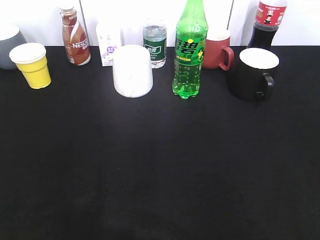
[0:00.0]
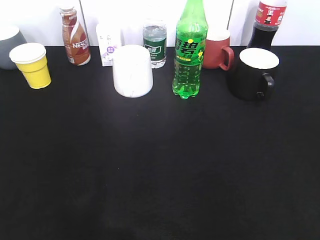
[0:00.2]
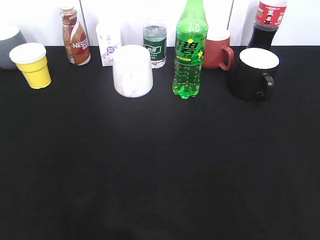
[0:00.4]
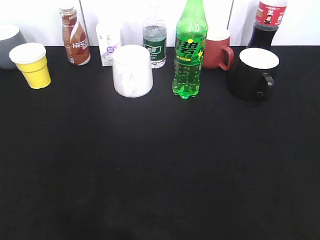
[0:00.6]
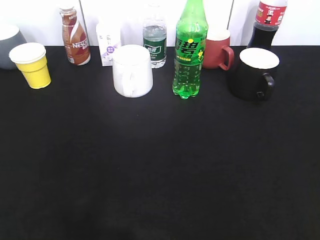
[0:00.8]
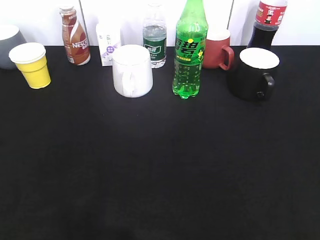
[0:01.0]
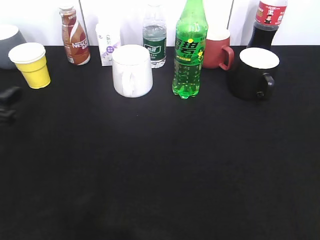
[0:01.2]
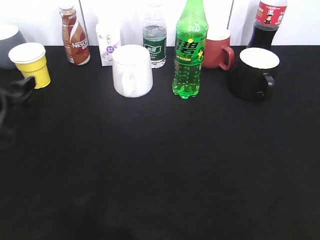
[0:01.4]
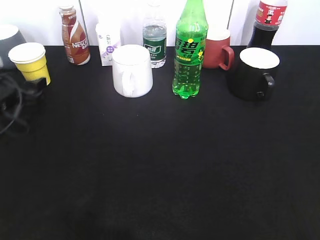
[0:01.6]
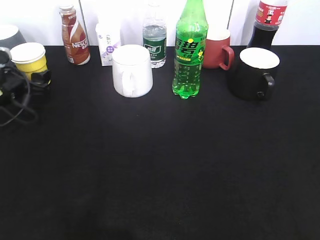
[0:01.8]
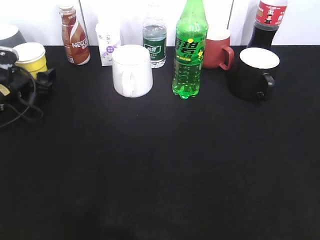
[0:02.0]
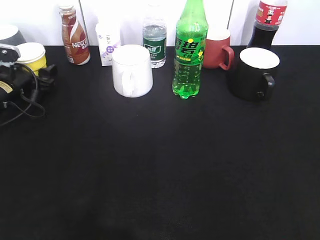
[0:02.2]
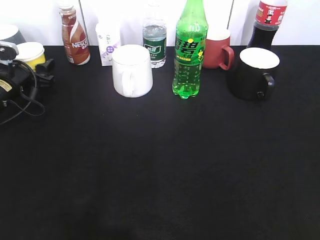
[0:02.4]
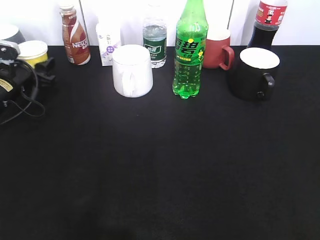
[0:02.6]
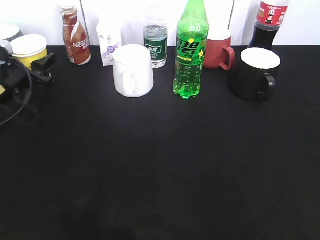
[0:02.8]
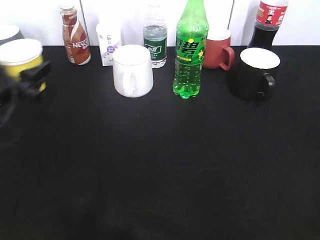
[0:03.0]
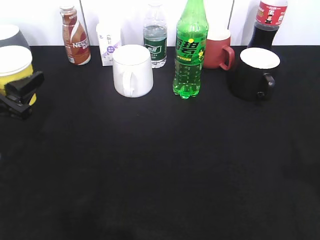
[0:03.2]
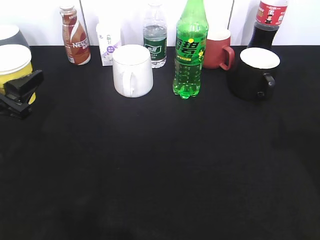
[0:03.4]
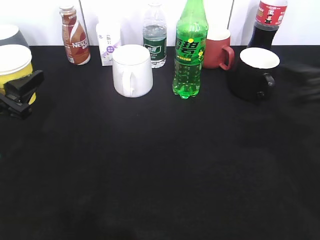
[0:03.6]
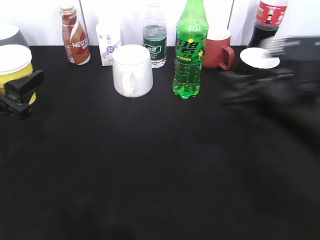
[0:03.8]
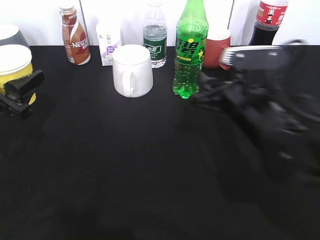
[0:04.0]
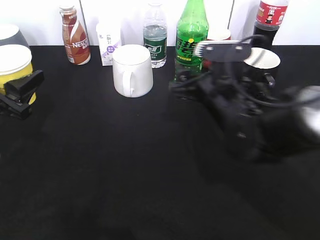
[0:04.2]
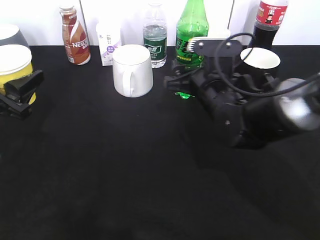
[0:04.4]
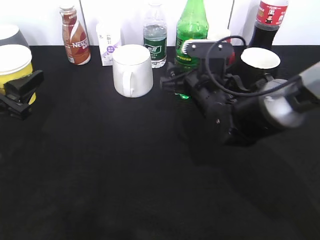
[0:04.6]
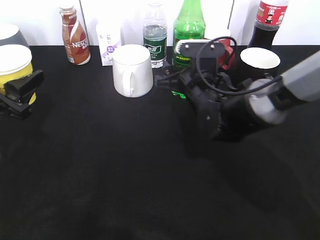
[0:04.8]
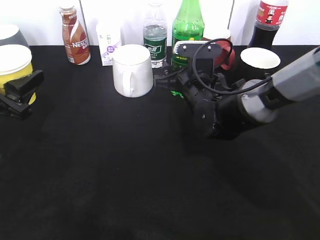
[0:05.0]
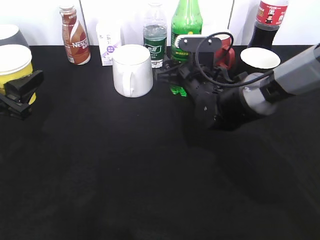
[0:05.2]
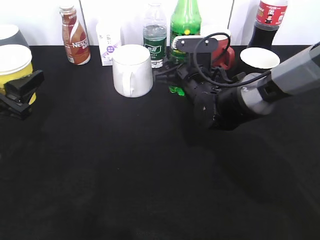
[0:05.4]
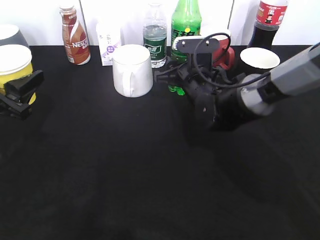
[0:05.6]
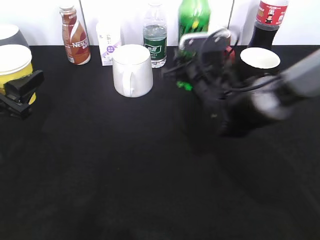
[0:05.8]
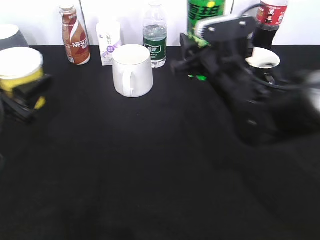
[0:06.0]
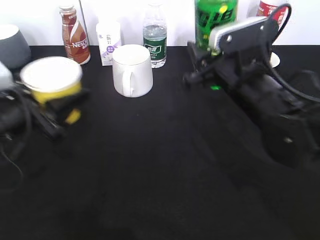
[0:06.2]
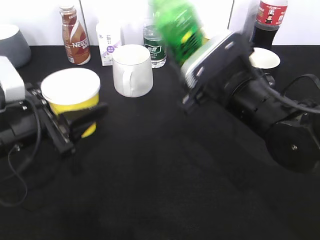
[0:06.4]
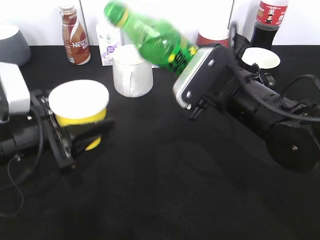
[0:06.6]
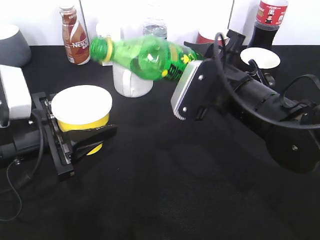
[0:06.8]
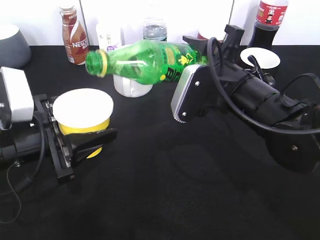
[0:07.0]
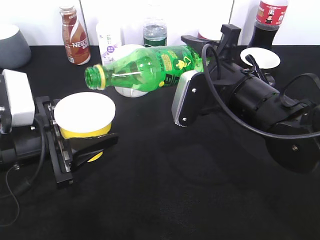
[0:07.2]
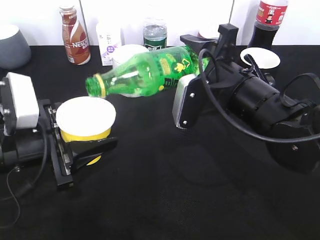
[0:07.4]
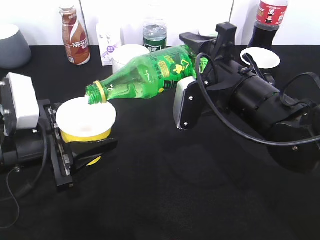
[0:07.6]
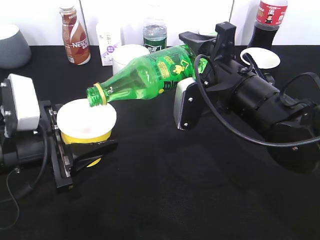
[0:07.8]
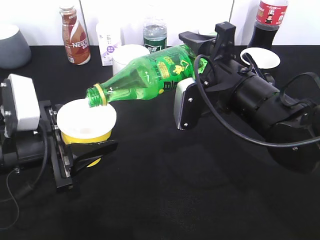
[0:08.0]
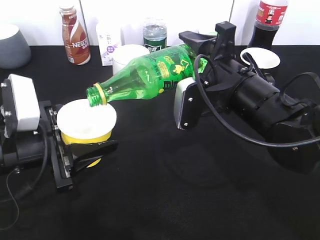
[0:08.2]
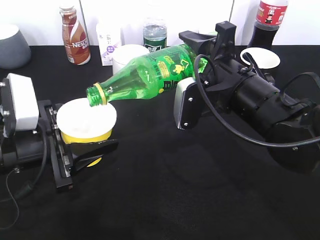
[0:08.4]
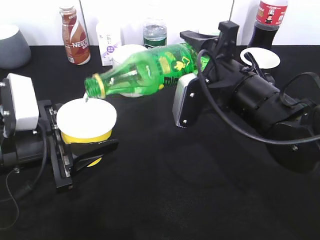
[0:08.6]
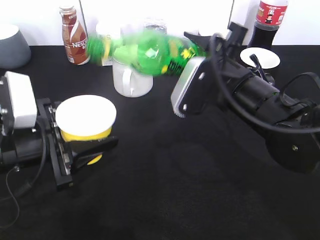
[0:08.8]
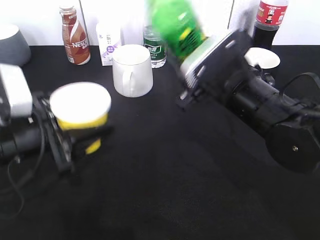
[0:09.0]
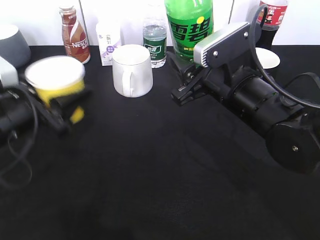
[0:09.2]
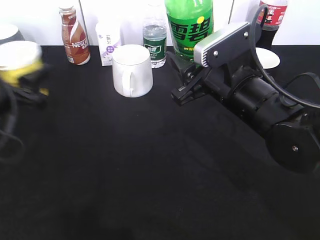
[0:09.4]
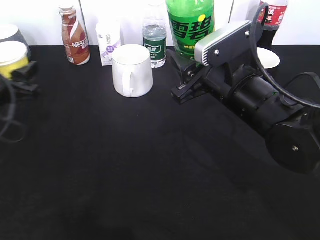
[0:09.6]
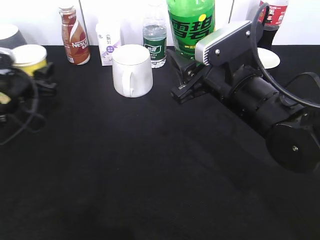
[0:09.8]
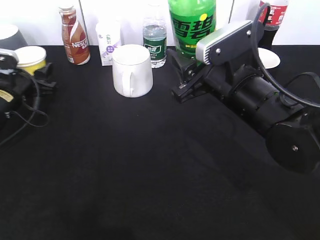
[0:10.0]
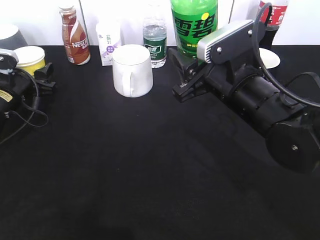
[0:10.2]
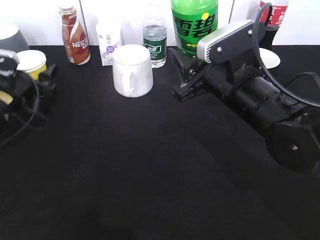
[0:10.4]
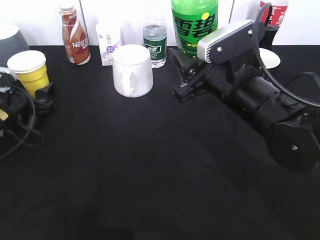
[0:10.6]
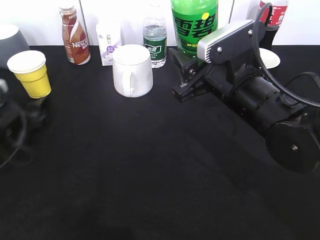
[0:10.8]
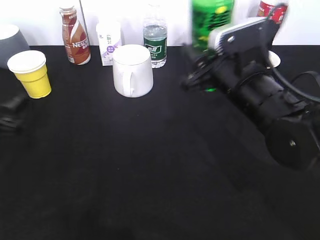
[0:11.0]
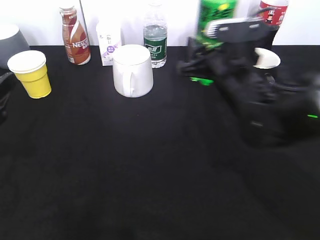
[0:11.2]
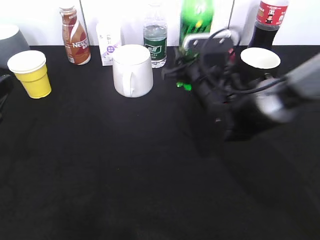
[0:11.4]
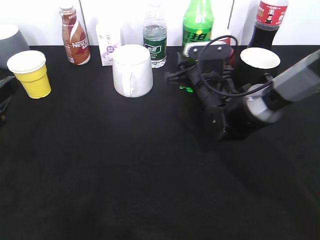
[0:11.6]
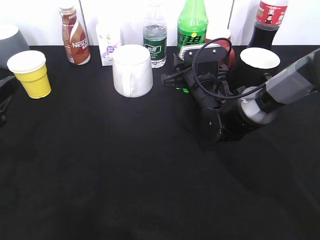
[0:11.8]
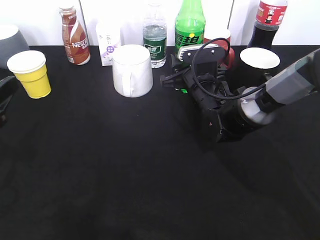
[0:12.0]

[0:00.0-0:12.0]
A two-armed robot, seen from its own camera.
Step, 0:00.0 to 0:02.4: Grasp the yellow paper cup with left gripper.
Step, 0:02.6 to 0:03.4: Lift the yellow paper cup with left gripper.
Step, 0:03.6 to 0:05.4: Grasp the bottle with sprite with right gripper.
Step, 0:05.8 to 0:08.6: Pour the sprite from bottle to cup with right gripper.
Step, 0:09.0 to 0:10.4: Place the yellow paper cup on the table with left gripper.
0:00.0 to 0:01.6: The left gripper is displaced forward and downward by about 40 cm.
0:01.6 to 0:03.0: The left gripper ends up about 5 cm from where it was, and closes its fingers.
0:03.0 to 0:04.4: The right gripper goes roughly 40 cm forward, to the left and downward.
0:04.4 to 0:06.0: The right gripper closes up.
0:06.0 to 0:07.6: The left gripper heads to the right, covering roughly 5 cm.
0:09.0 to 0:10.4: The left gripper heads forward, to the left and downward, covering some 20 cm, and opens its fingers.
0:10.4 to 0:12.0: The left gripper shifts approximately 20 cm backward and upward, while the right gripper shifts about 15 cm forward and downward.

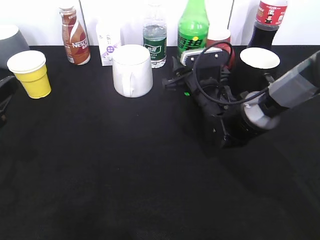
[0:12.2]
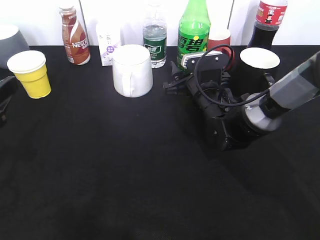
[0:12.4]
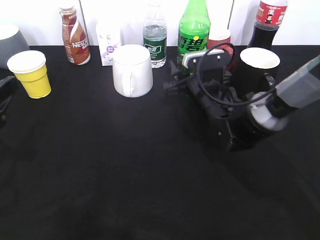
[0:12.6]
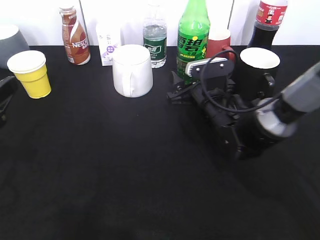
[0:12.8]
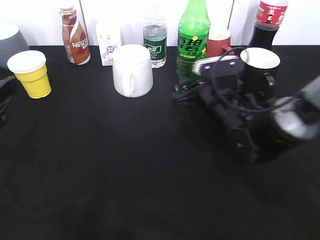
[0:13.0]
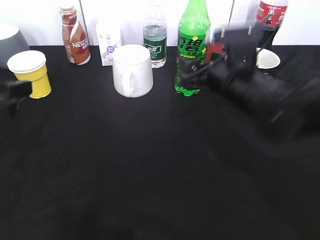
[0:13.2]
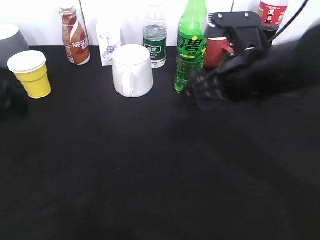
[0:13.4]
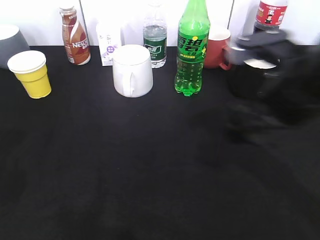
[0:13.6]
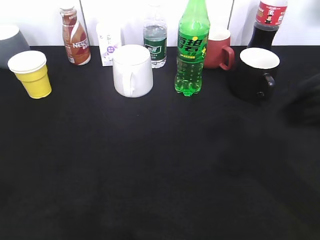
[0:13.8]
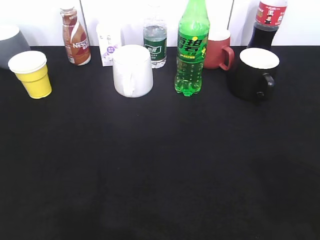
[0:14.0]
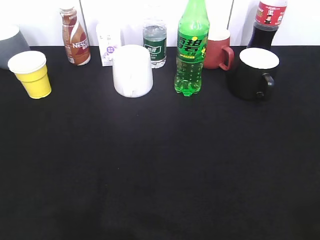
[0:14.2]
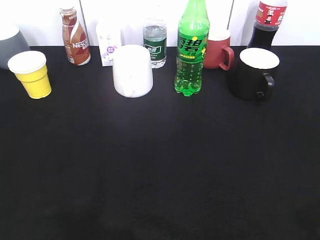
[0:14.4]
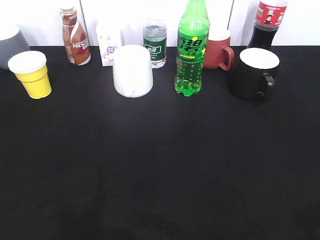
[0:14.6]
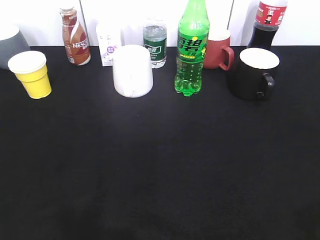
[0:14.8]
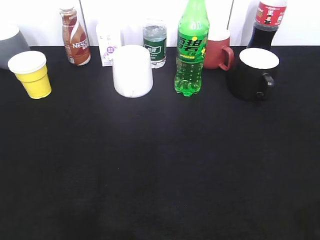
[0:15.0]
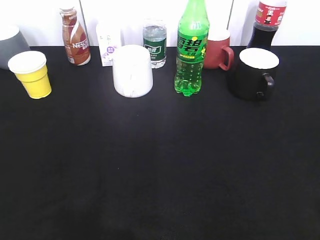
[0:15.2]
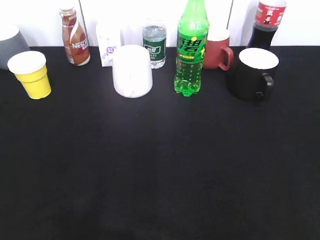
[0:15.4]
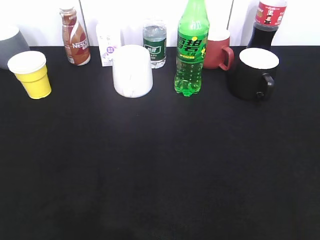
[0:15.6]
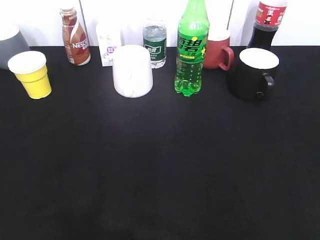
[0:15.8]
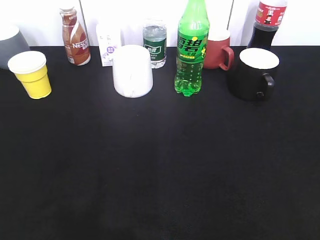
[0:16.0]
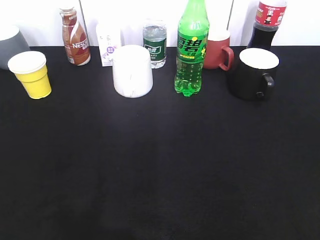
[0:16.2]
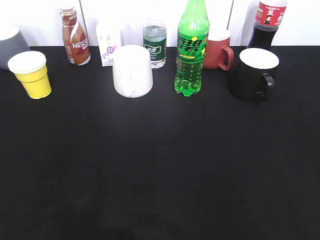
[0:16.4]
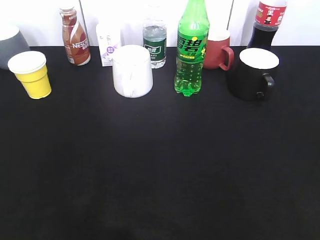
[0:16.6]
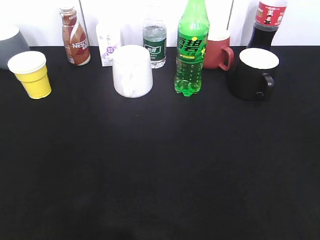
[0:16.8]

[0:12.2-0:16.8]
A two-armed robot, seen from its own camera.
0:12.2 to 0:13.8: The right gripper moves upward, backward and to the right, some 35 cm, and opens. The left gripper shifts approximately 15 cm upward and backward.
0:13.8 to 0:15.2: The left gripper heads backward, covering roughly 10 cm; the right gripper heads backward and to the right, covering about 15 cm.

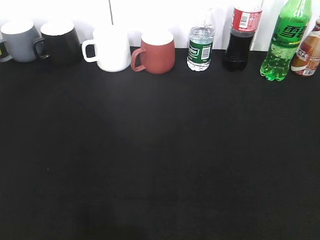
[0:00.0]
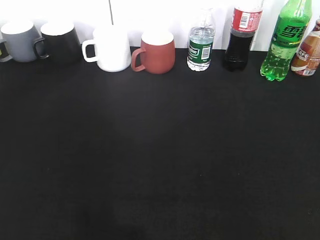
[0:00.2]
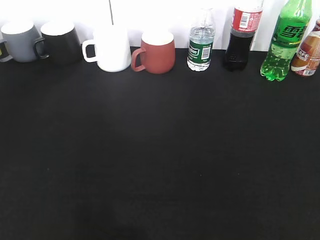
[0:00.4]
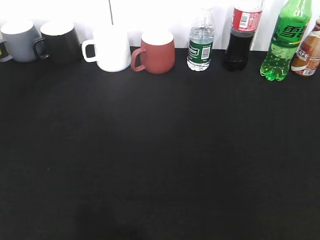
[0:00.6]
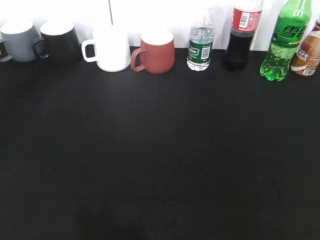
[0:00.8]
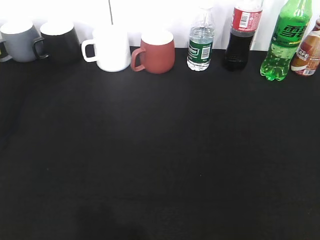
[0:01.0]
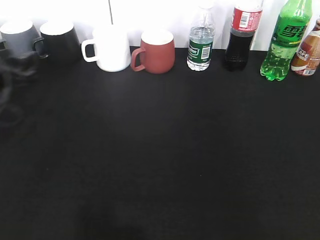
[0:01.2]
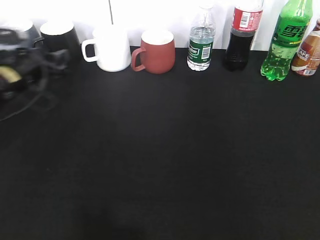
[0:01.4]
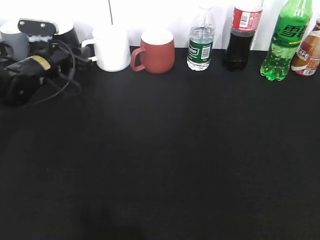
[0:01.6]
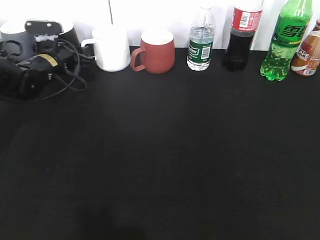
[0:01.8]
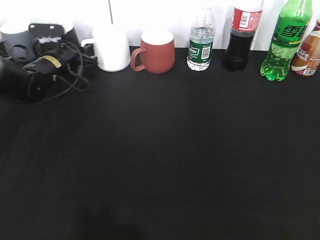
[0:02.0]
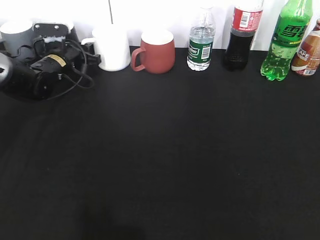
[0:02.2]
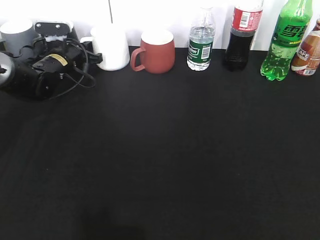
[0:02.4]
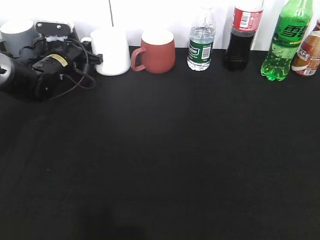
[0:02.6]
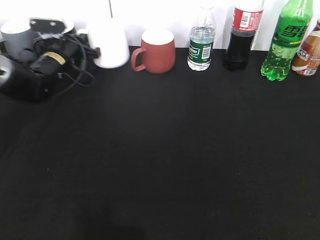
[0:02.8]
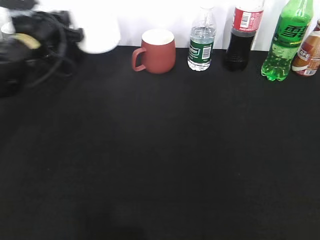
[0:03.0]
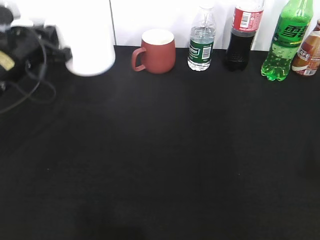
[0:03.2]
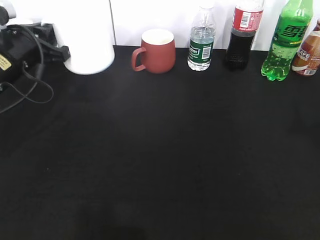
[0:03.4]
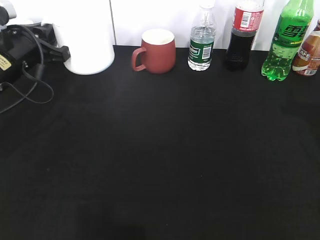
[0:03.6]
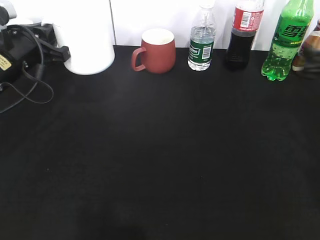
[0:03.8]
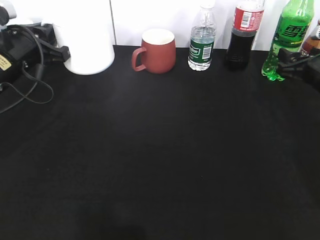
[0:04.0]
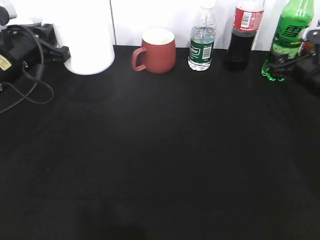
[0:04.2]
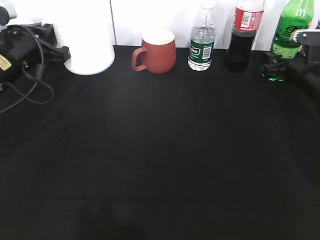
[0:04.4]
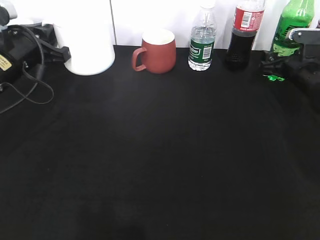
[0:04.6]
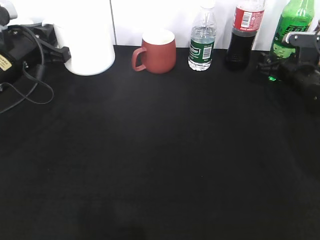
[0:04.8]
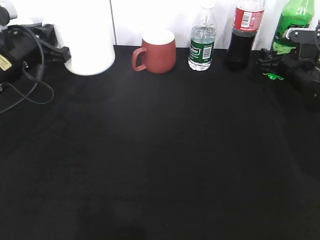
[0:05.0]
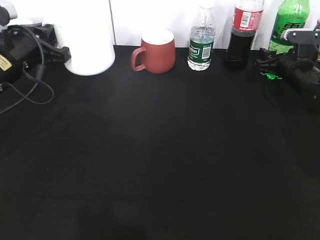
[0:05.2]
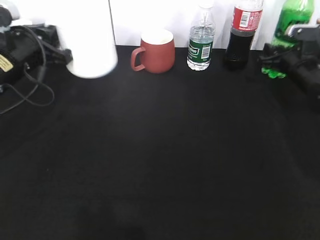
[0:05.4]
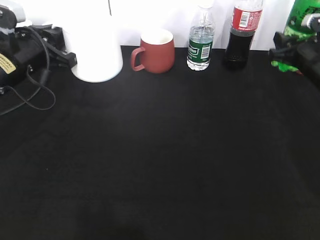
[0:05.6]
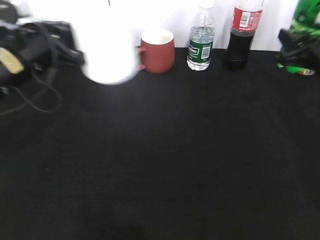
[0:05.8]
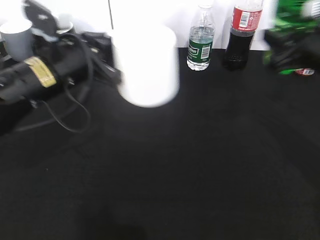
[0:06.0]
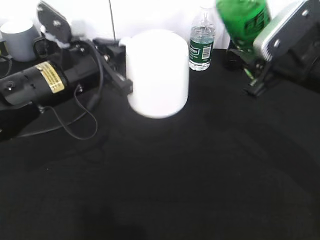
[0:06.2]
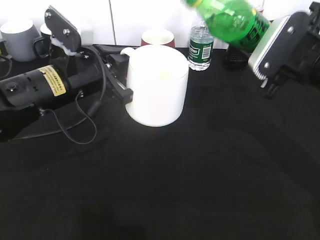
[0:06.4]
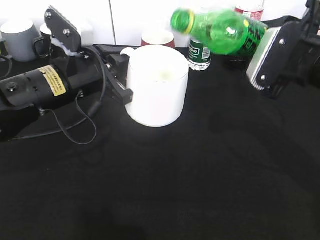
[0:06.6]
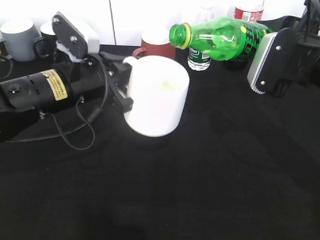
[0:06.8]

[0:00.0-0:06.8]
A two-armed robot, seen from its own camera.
Step, 0:00.0 to 0:02.4: Grasp the white cup with left gripper.
Step, 0:02.6 to 0:03.6: Lift the white cup with left gripper.
Step, 0:03.8 to 0:05.2: Grasp the bottle with sprite with right gripper.
0:00.0 to 0:01.4: The left gripper is displaced forward by about 40 cm.
0:01.4 to 0:02.8: The left gripper travels forward by some 10 cm, and closes.
0:02.8 to 0:04.0: The left gripper is displaced backward and upward by some 15 cm. Meanwhile the right gripper is displaced forward by roughly 35 cm.
0:04.0 to 0:05.4: The right gripper travels forward by about 5 cm, and closes its fingers.
0:05.4 to 0:06.8: The left gripper heads to the right and backward, covering about 10 cm. Meanwhile the right gripper goes approximately 20 cm backward, upward and to the left.
